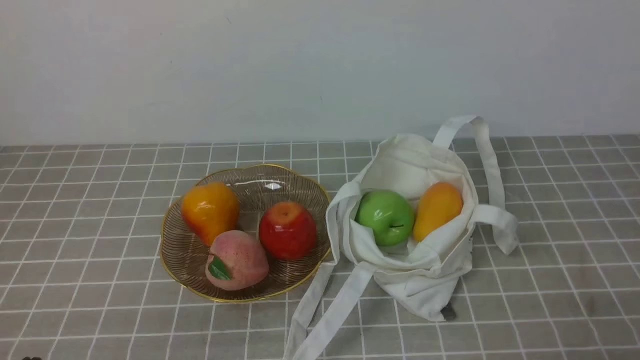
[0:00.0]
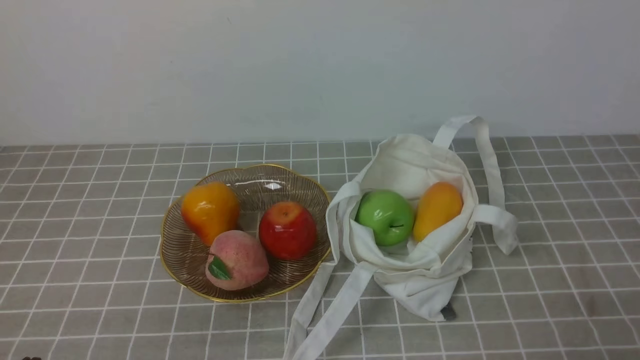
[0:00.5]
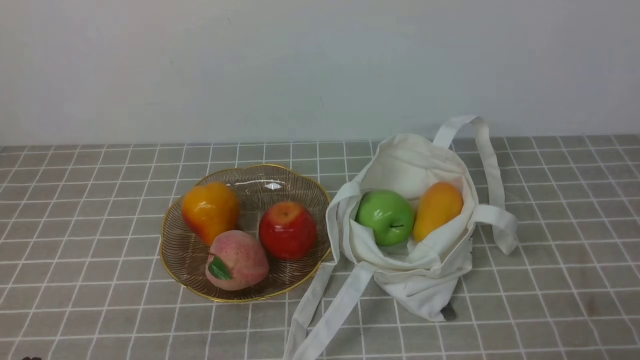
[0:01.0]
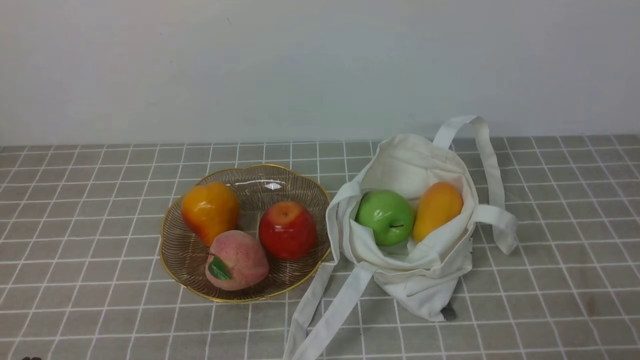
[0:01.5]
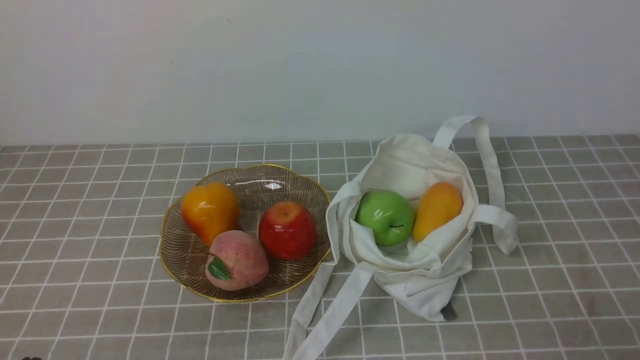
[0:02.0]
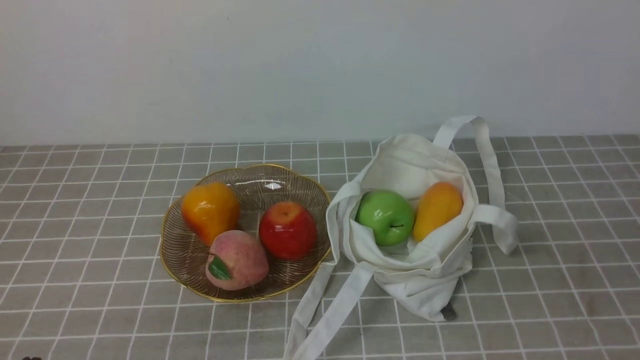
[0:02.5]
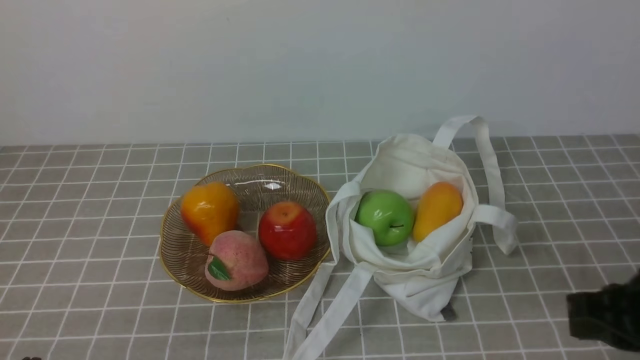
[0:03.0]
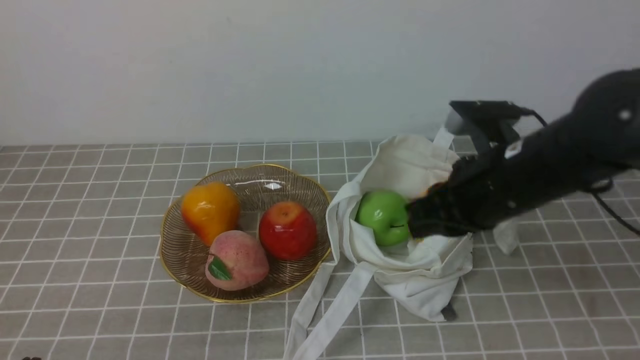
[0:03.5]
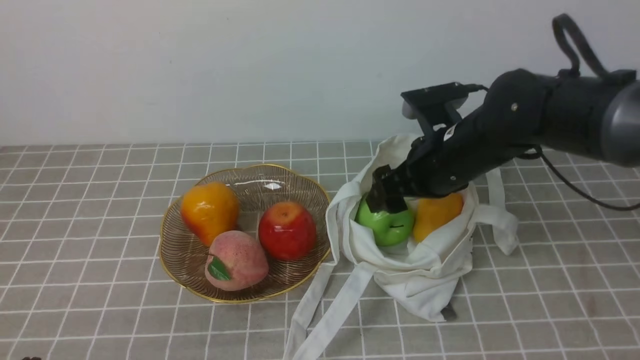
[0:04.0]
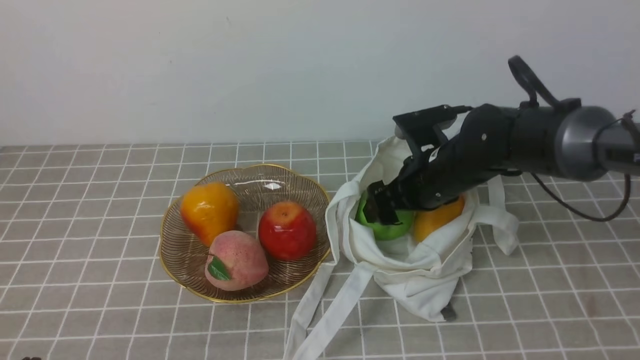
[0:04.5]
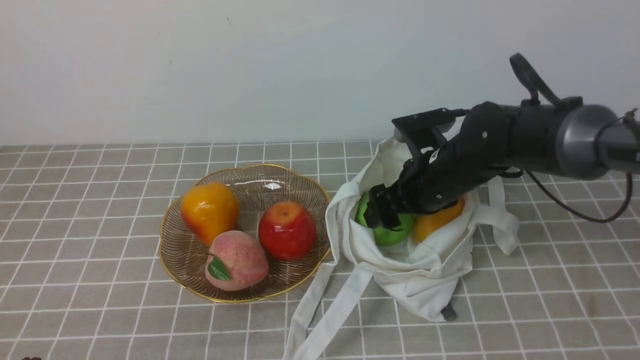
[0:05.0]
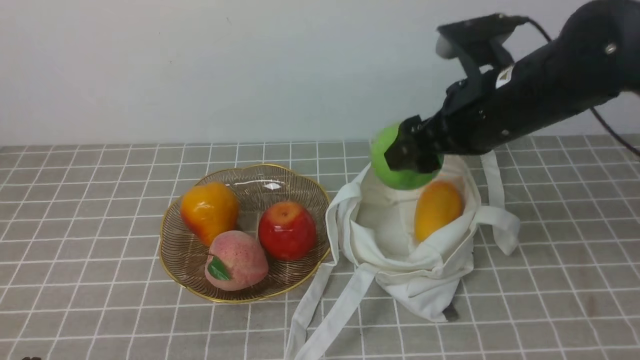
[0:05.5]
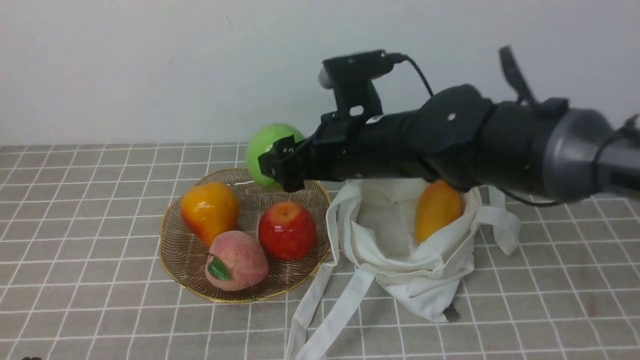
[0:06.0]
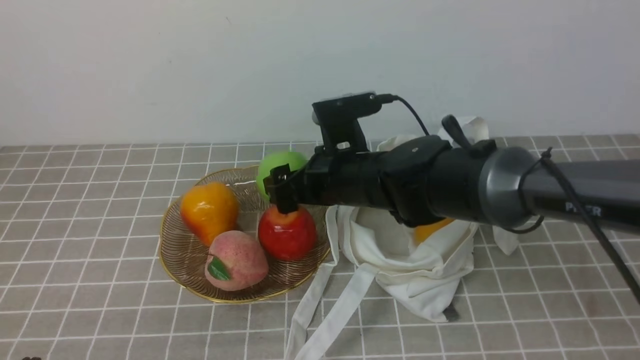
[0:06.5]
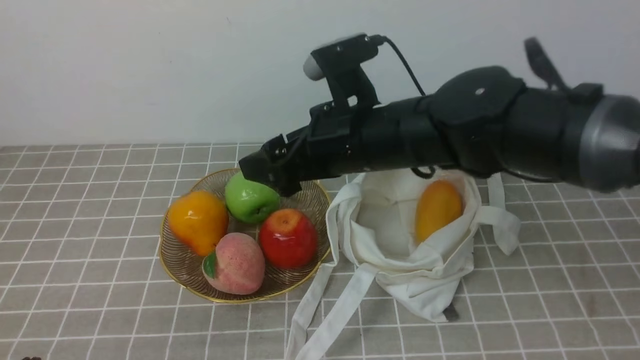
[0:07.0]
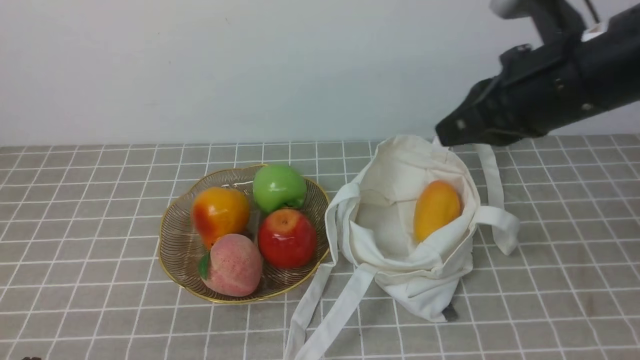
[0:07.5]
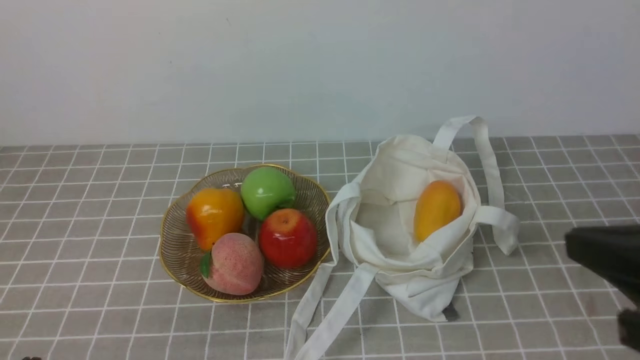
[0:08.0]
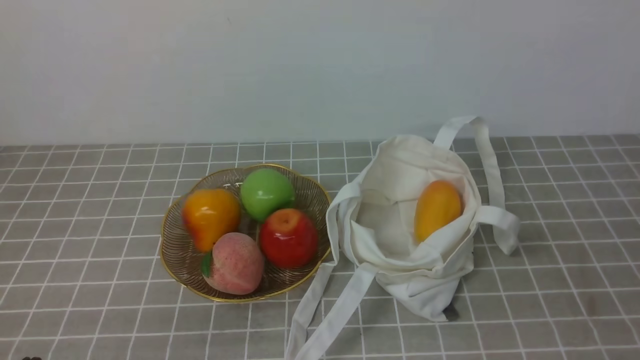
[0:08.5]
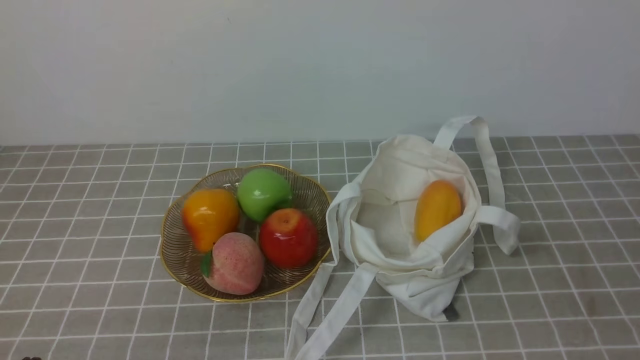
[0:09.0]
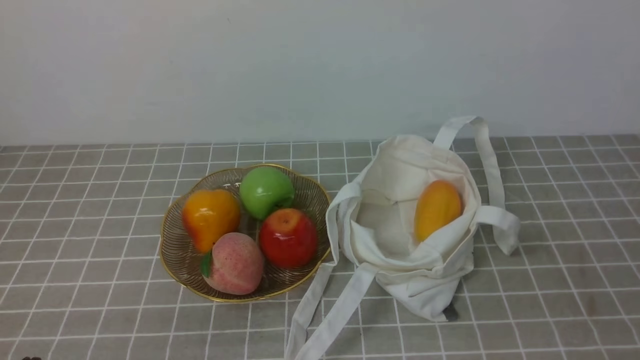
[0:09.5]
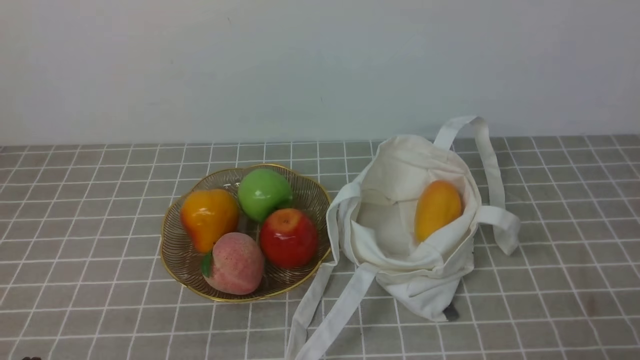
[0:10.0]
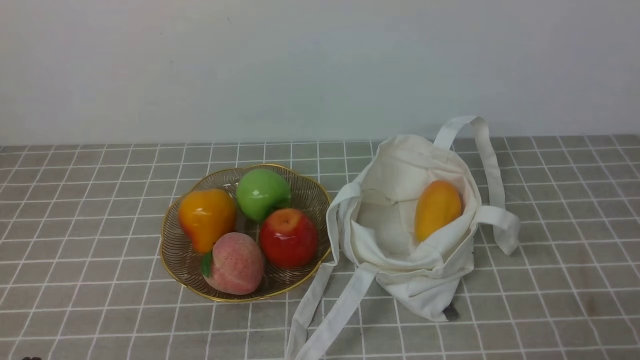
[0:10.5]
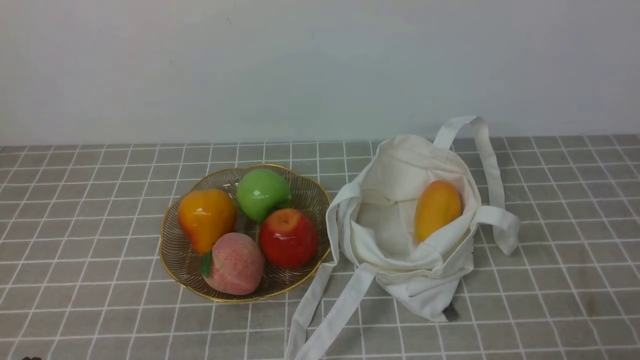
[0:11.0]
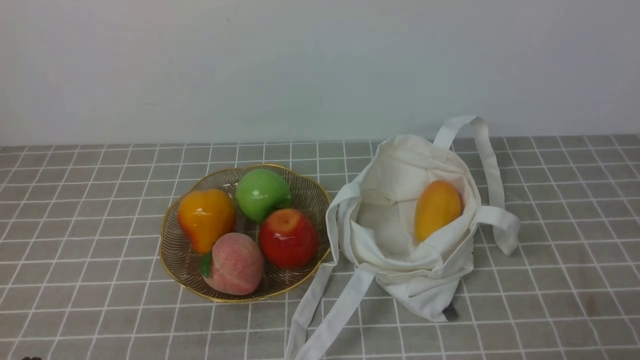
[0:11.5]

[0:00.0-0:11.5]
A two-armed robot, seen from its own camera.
Step, 0:00.0 to 0:05.0: use the right arm to grab an apple from the bag.
Step, 0:05.5 to 0:06.5: use the right arm to put the apple into the empty plate on the left.
0:02.0 to 0:04.0: The right gripper shifts about 35 cm forward and to the left, and opens up.
0:04.0 to 0:06.0: The right gripper goes up and down, approximately 15 cm each way, reversing 2 times.
0:06.0 to 0:07.5: The right gripper goes some 20 cm to the right, upward and backward, and closes.
0:07.5 to 0:09.5: The right gripper moves backward, downward and to the right, some 25 cm.

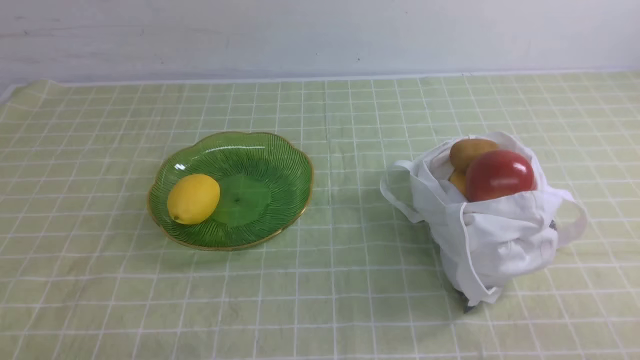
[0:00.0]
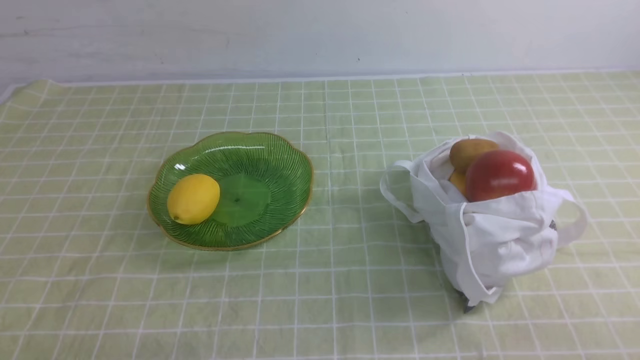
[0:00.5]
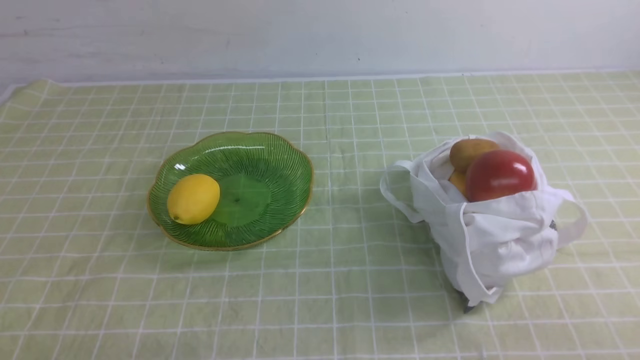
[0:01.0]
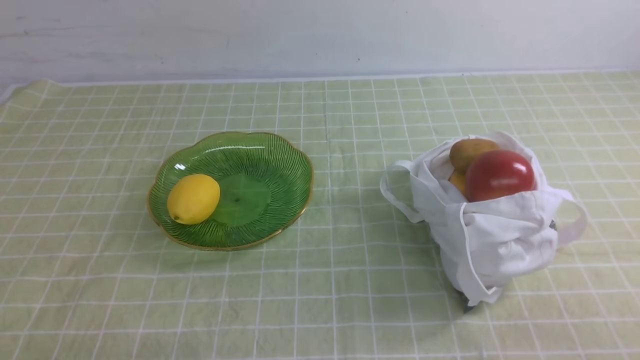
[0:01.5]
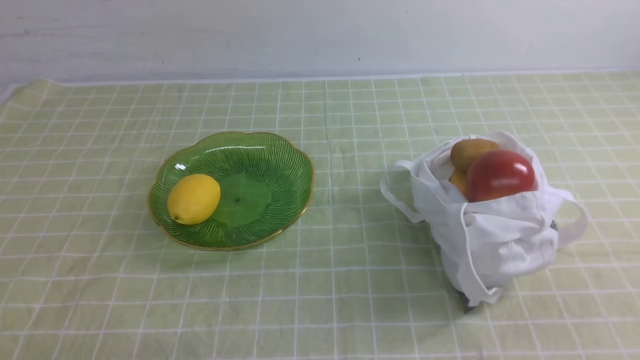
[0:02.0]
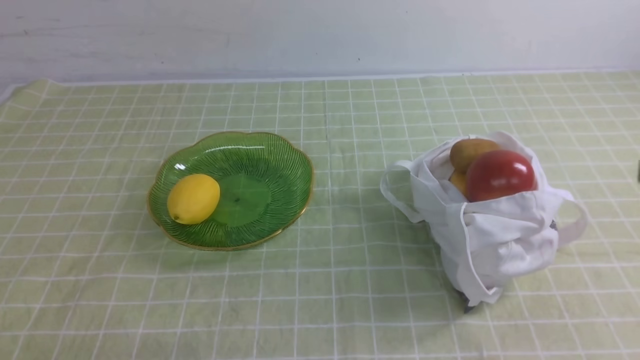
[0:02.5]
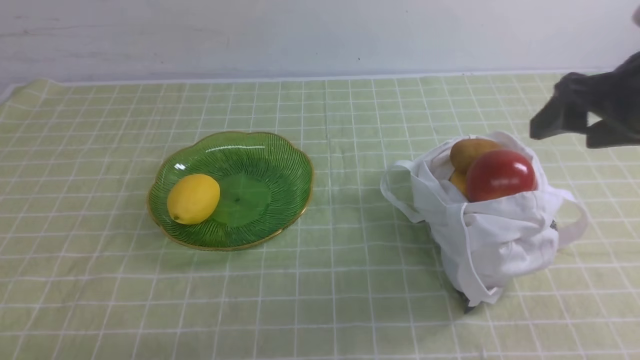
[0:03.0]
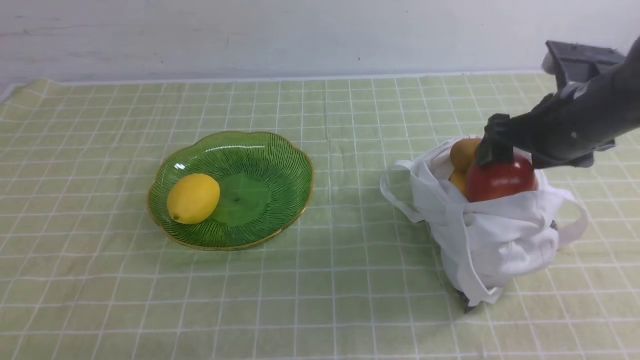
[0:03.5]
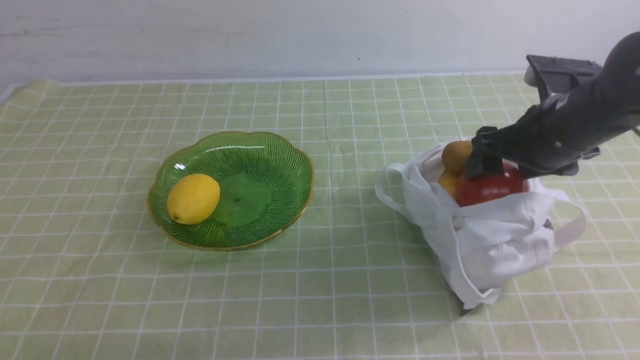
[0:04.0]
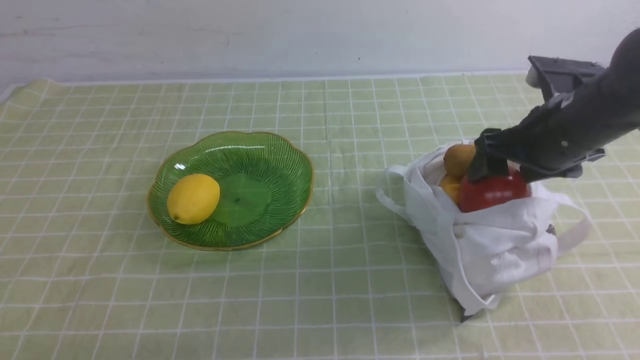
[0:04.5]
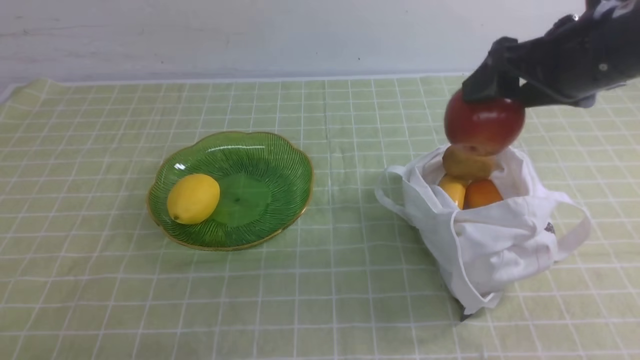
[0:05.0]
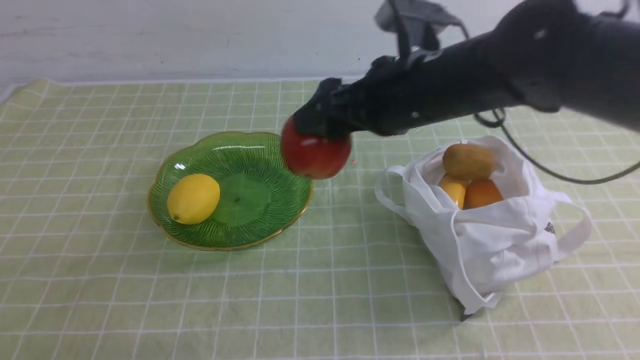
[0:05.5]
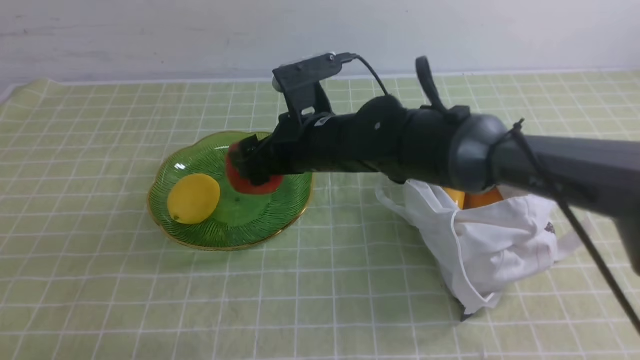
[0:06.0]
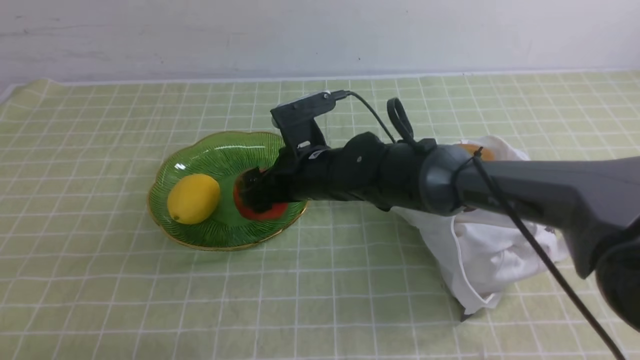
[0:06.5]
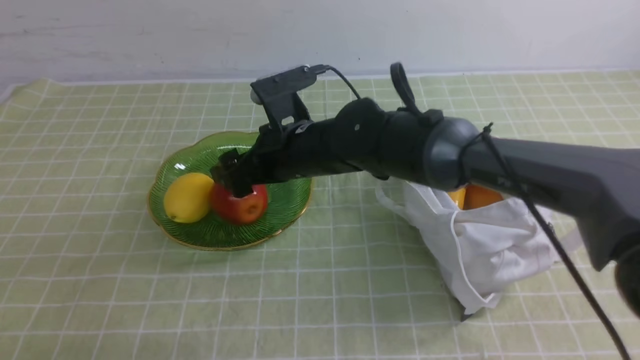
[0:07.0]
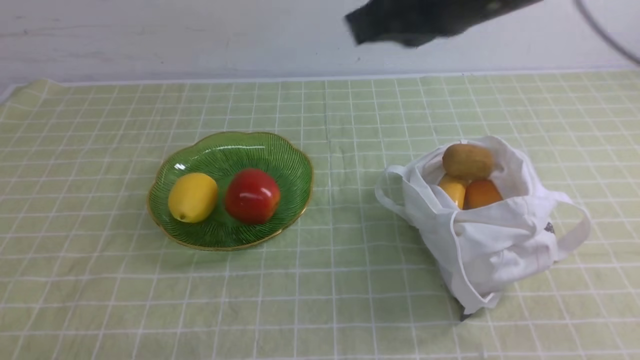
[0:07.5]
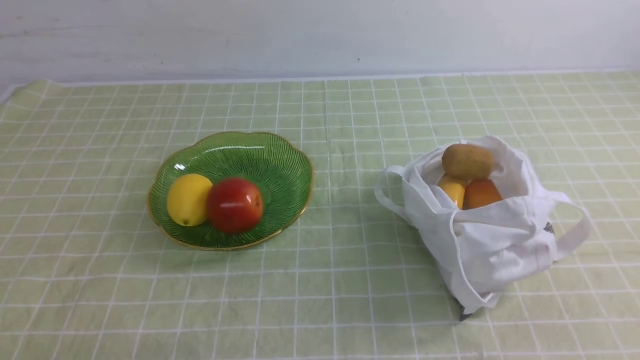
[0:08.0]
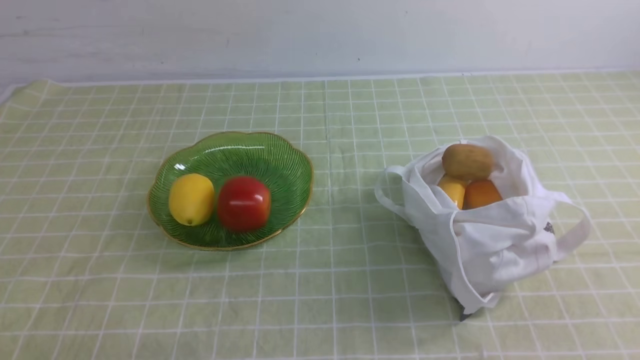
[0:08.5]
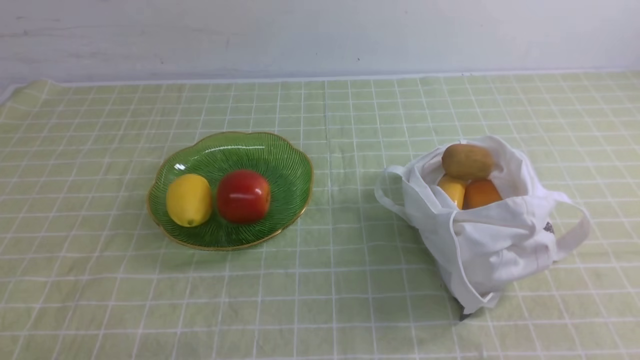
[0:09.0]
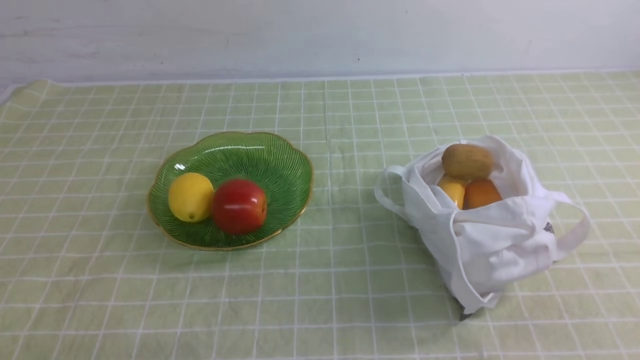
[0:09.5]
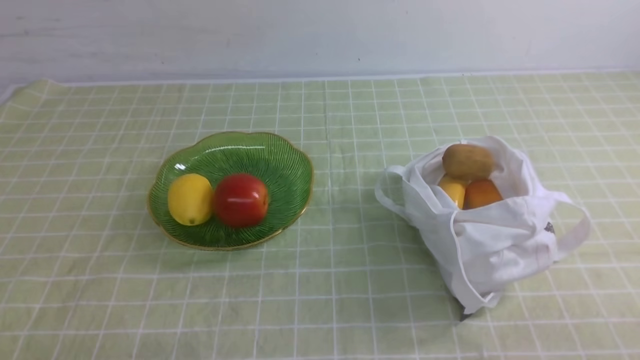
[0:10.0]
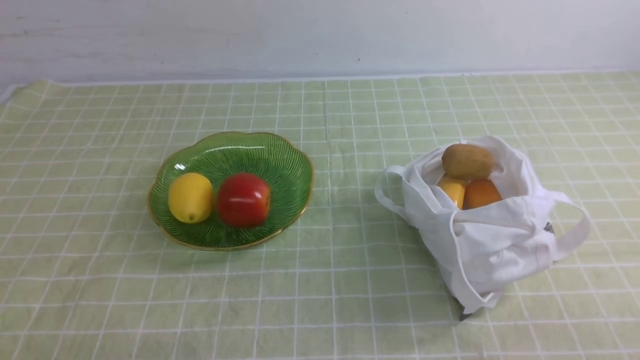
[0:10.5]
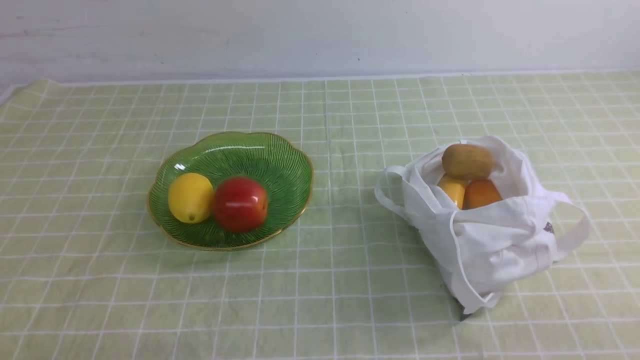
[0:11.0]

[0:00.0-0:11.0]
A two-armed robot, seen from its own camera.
Step, 0:00.0 to 0:04.5: use the right arm to grab an apple from the bag.
Step, 0:05.0 to 0:06.5: use the right arm to put the apple into the empty plate on the left.
0:02.0 to 0:03.5: The right gripper moves forward, about 30 cm, and opens.
0:03.5 to 0:05.5: The right gripper shifts about 15 cm to the left.
0:05.5 to 0:07.5: The right gripper goes some 15 cm upward and backward, and closes its fingers.
0:07.5 to 0:09.0: The right gripper is displaced backward, to the right and downward by some 25 cm.
